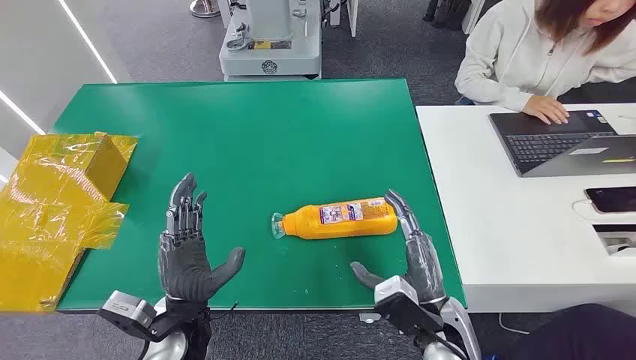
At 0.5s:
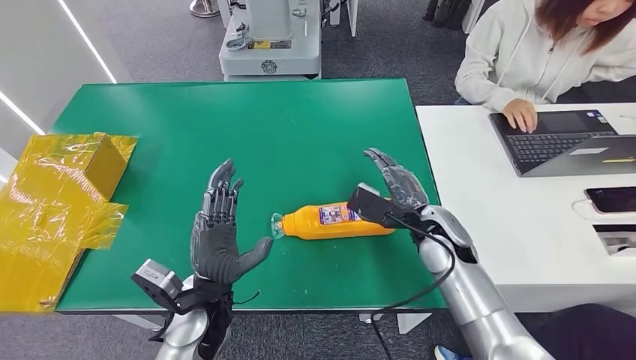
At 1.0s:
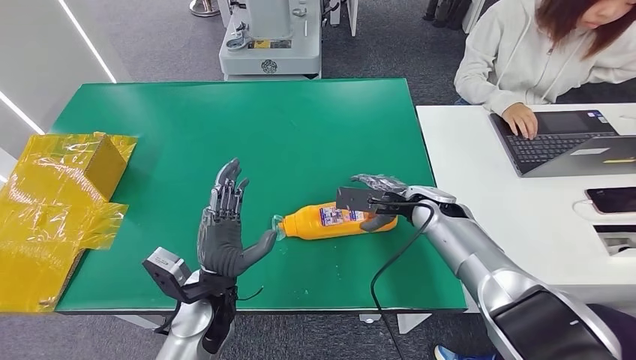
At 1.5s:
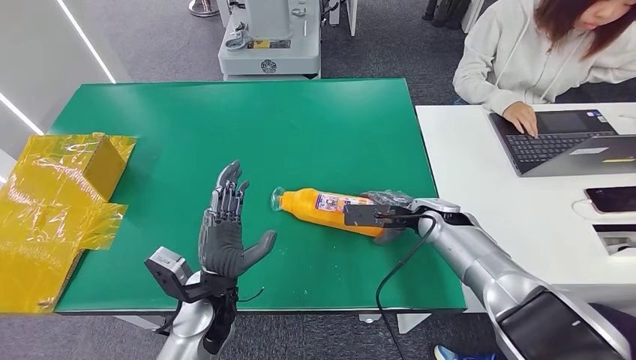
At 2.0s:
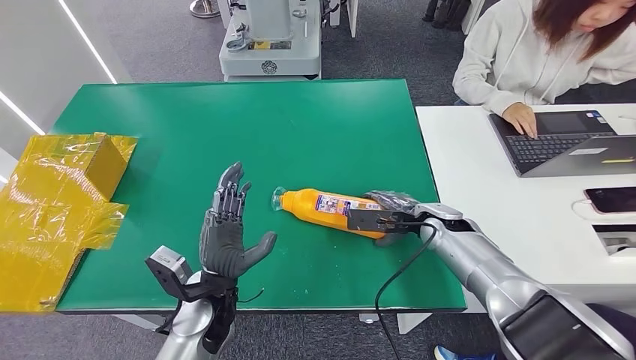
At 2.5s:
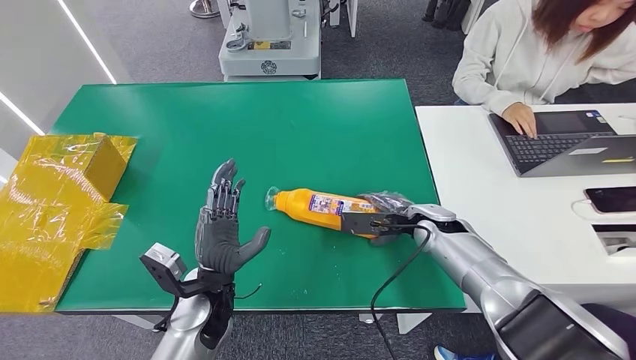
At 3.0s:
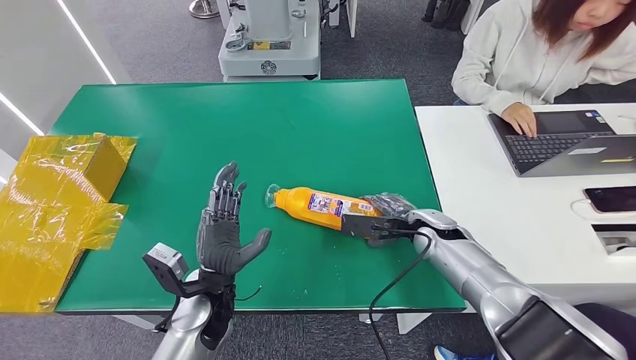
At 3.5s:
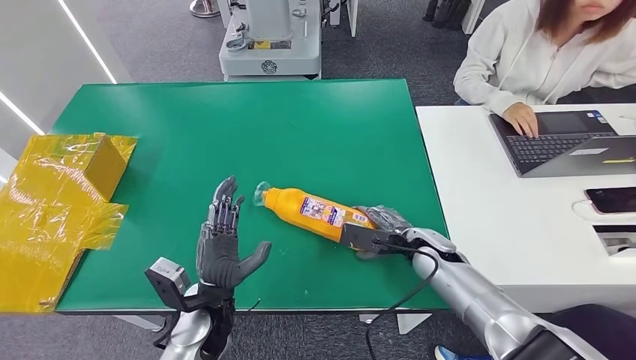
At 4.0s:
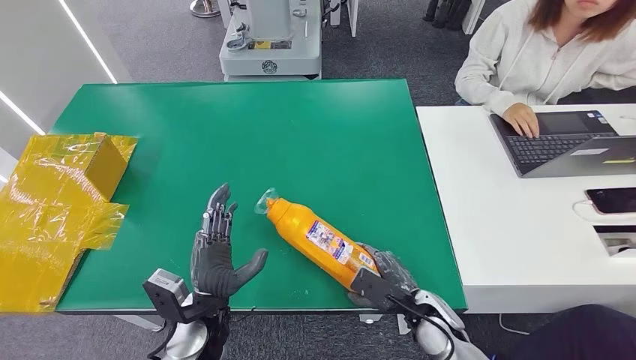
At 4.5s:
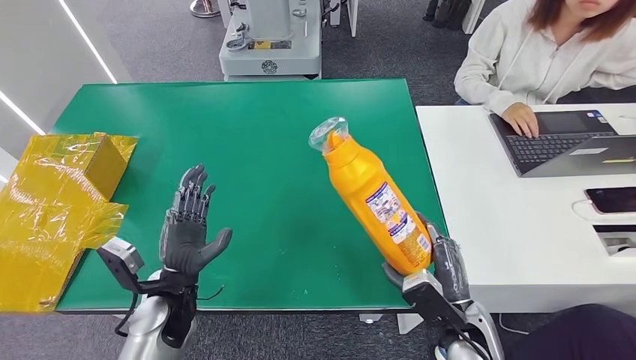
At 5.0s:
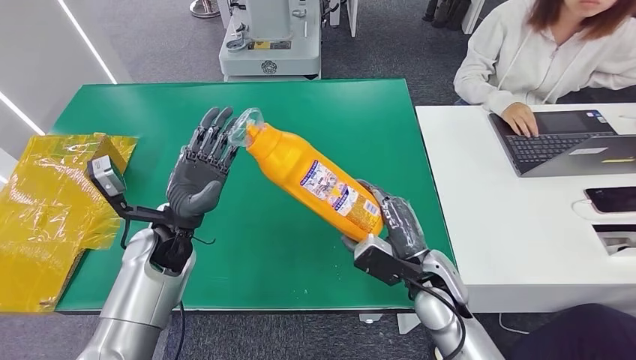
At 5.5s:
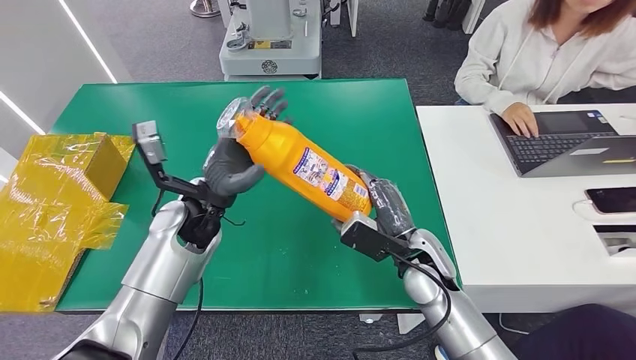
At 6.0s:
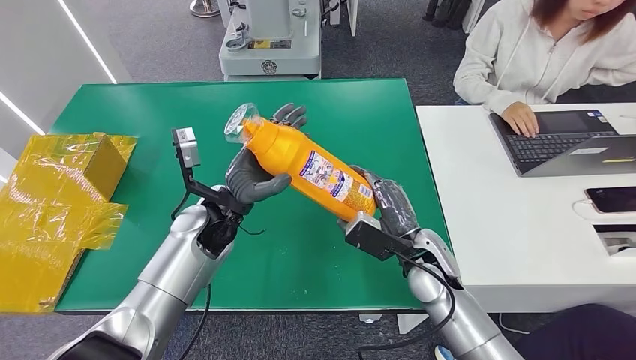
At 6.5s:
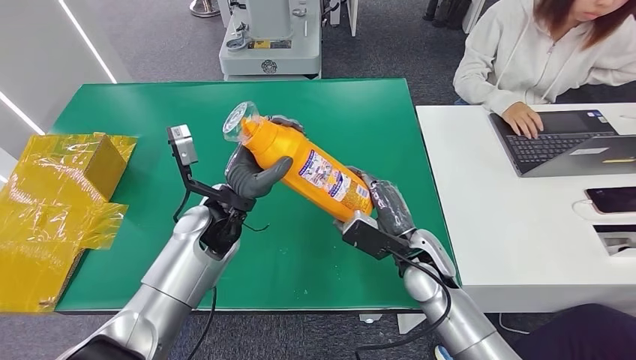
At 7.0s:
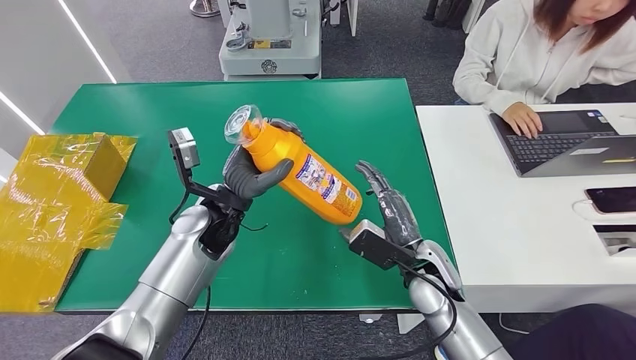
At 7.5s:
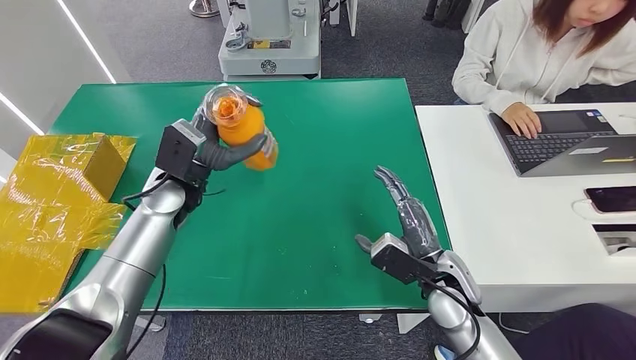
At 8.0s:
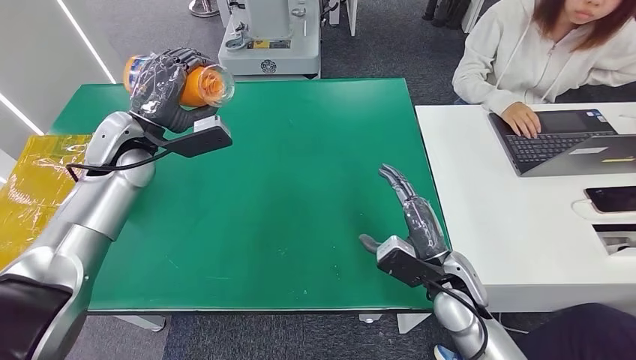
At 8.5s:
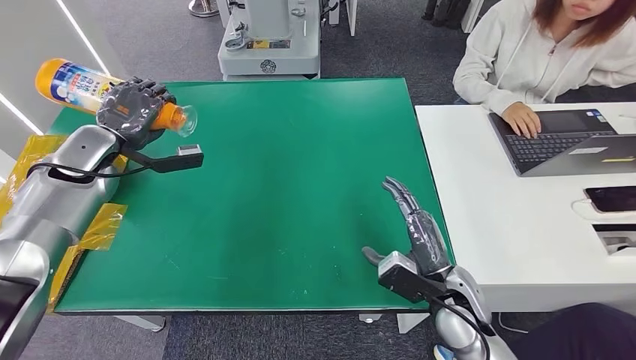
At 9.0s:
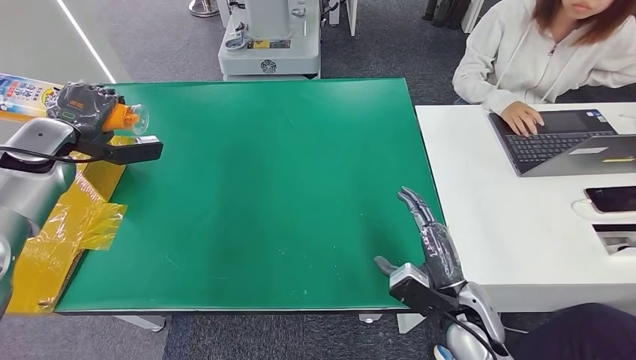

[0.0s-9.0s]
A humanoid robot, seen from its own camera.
Step, 0.0s to 3.5s: Pick up the bottle from the table.
Step, 7.0s to 9.0s: Turn the bottle to the front side.
4.5s to 7.0s: The left hand goes roughly 15 cm forward, upward and to the right. The right hand goes approximately 10 cm forward.

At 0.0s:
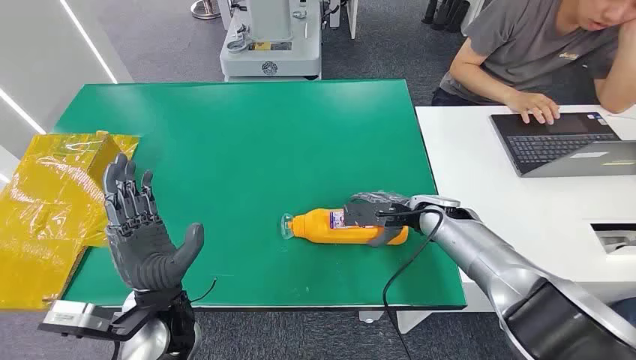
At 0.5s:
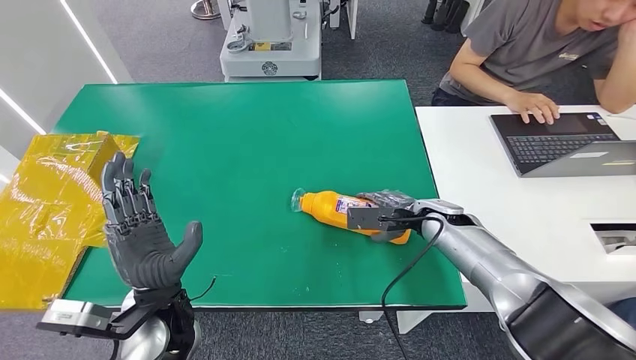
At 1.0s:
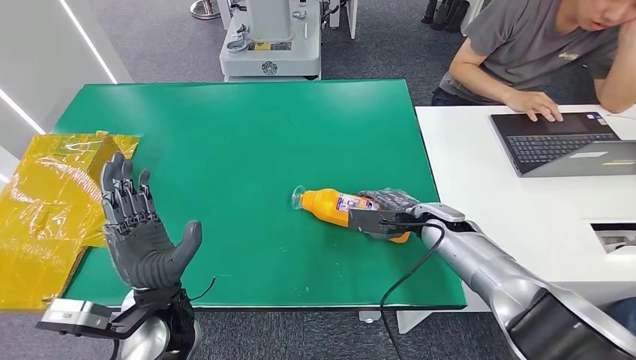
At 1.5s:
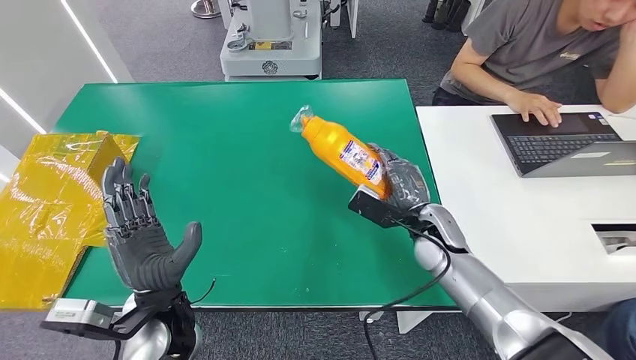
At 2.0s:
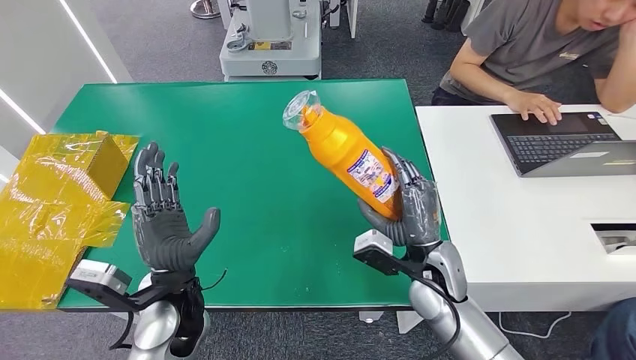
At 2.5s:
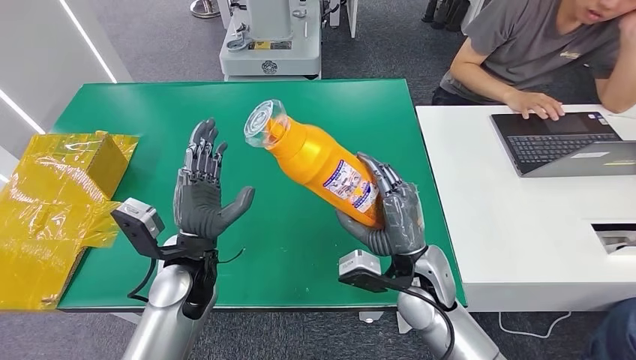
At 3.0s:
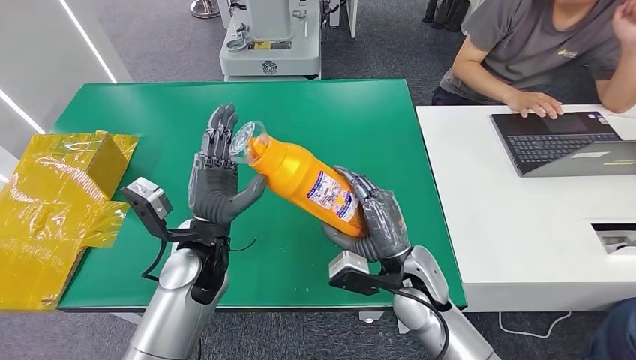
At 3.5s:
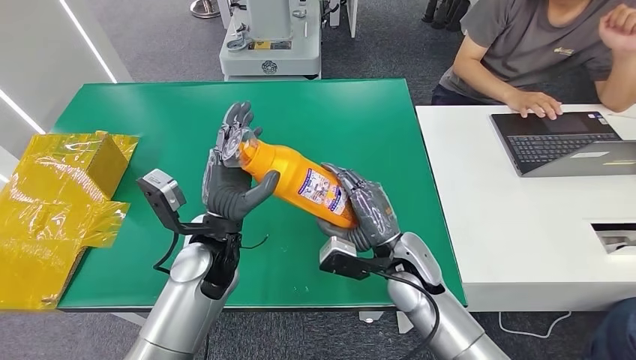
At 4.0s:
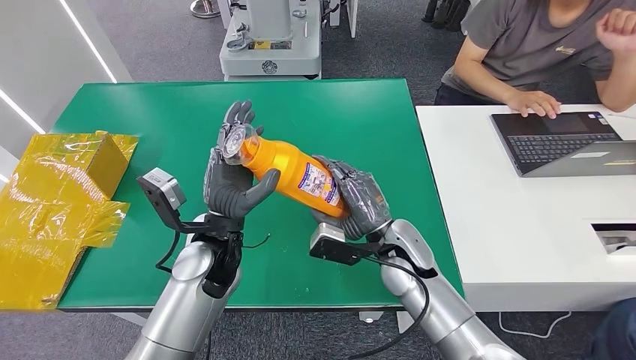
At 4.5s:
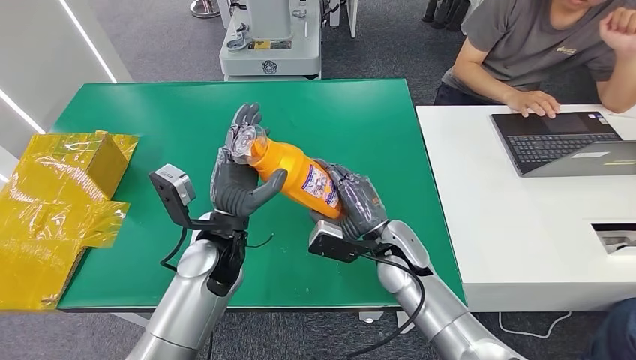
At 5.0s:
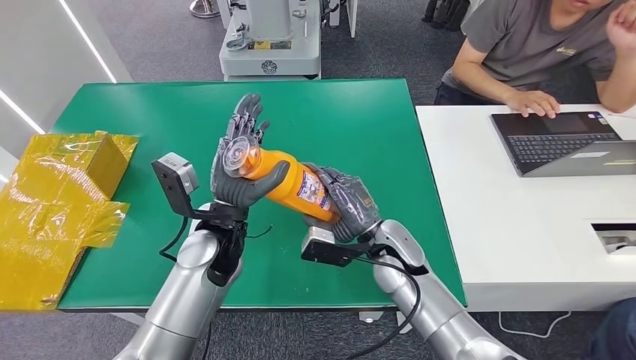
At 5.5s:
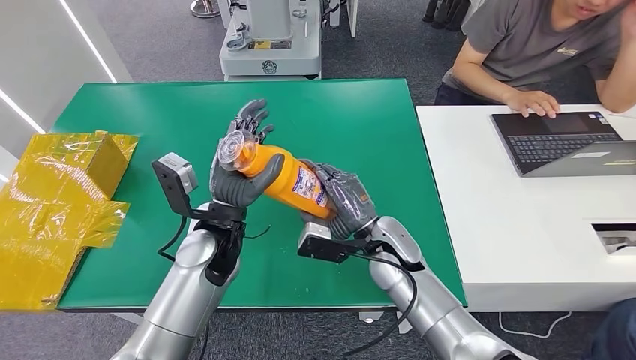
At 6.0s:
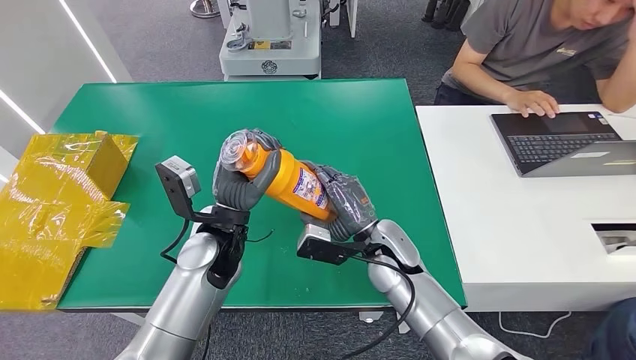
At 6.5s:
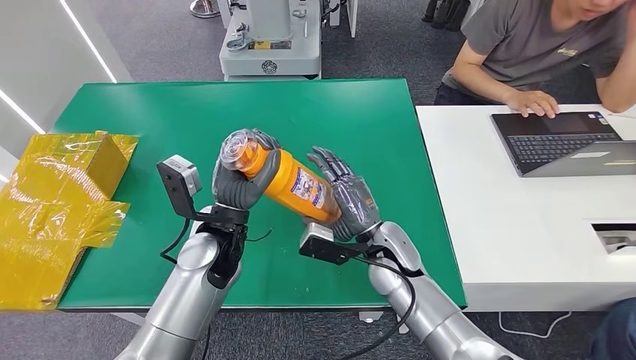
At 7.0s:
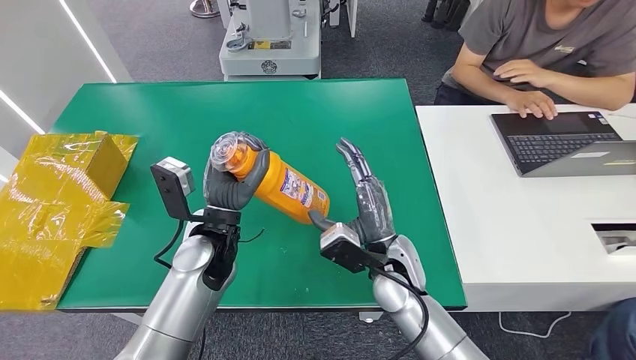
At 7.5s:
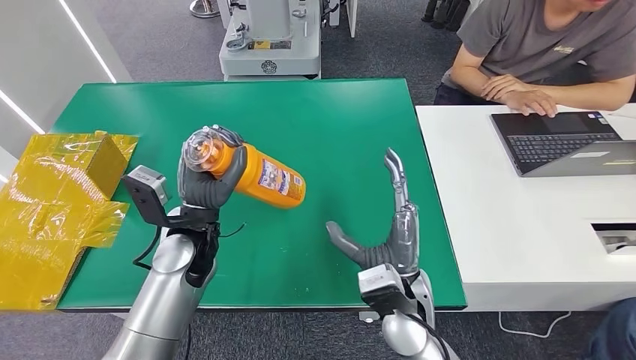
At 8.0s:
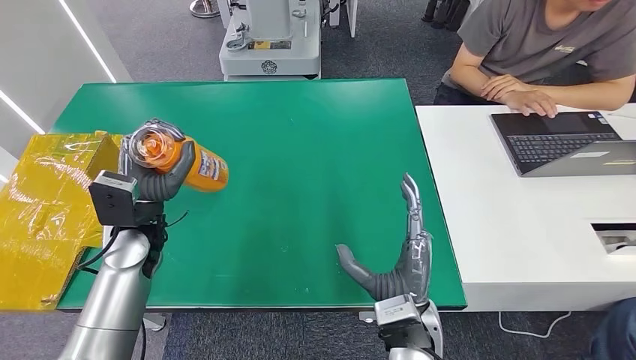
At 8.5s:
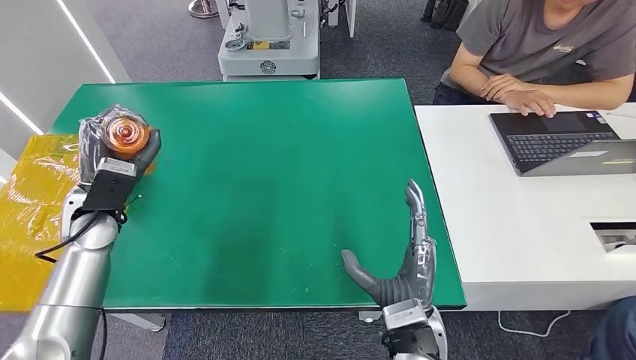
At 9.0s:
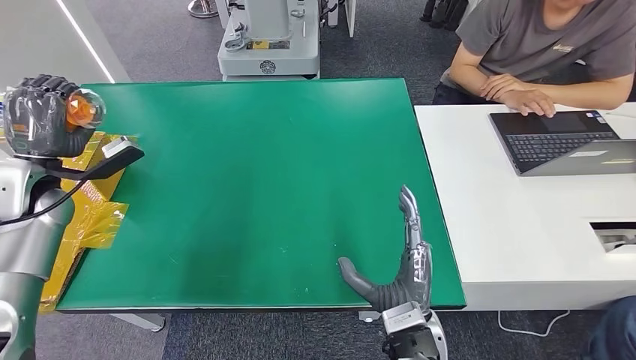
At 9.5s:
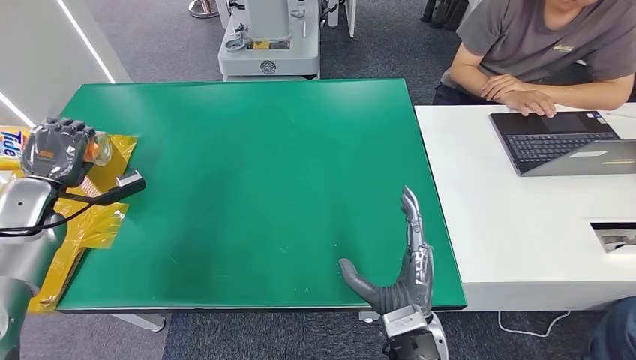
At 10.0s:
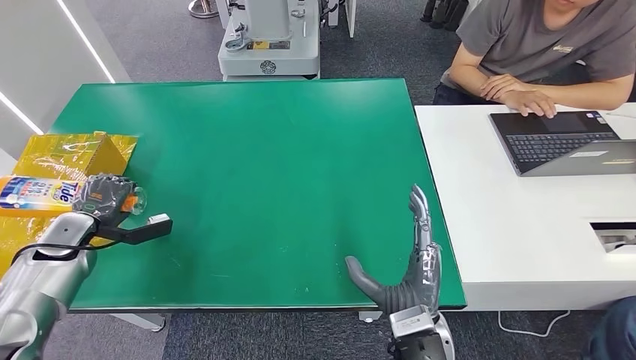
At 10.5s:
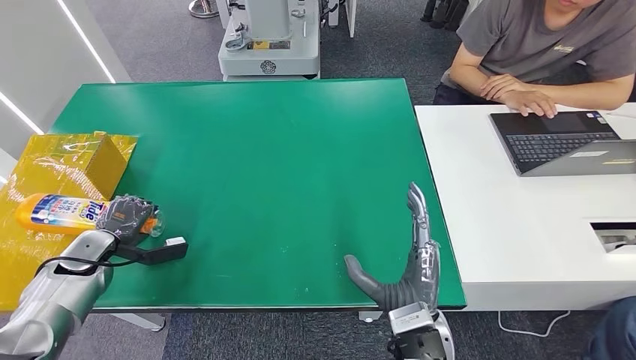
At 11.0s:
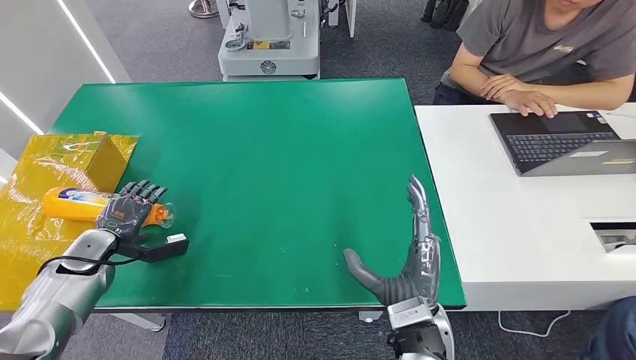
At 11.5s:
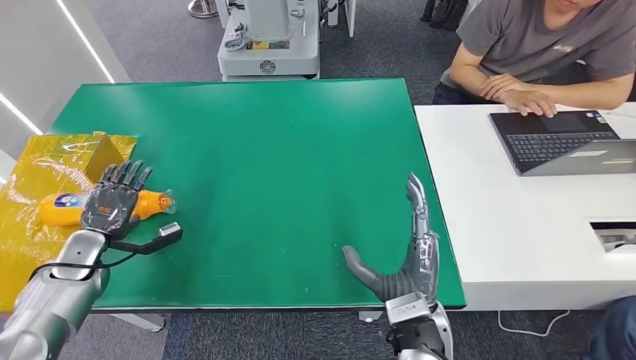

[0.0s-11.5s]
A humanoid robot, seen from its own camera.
Step, 0.0s to 1.0s: Pick up the bottle from the table.
Step, 4.5s to 11.0s: Turn the bottle to the front side.
4.0s to 6.0s: There are only small adjustments of the hands.
6.0s to 7.5s: The right hand goes approximately 10 cm backward.
7.5s to 9.5s: The right hand travels backward by approximately 5 cm, while the left hand goes about 30 cm to the left.
9.5s to 11.5s: The left hand moves downward and backward, some 10 cm.
